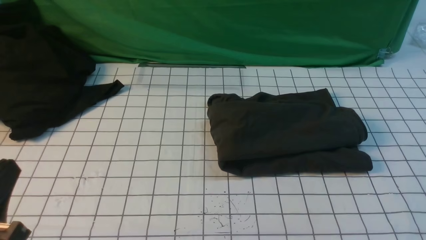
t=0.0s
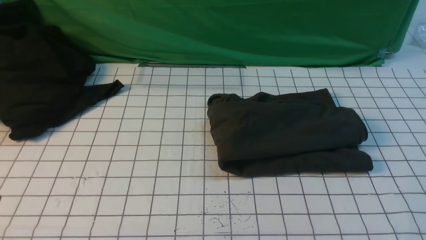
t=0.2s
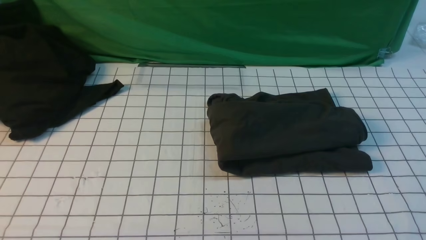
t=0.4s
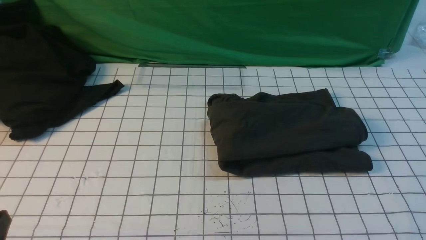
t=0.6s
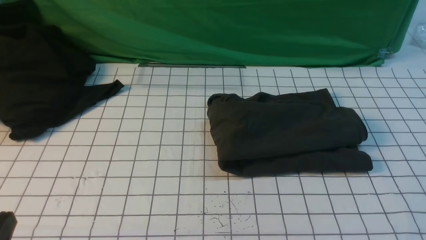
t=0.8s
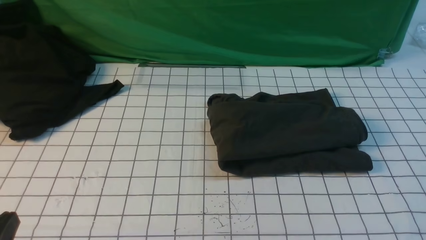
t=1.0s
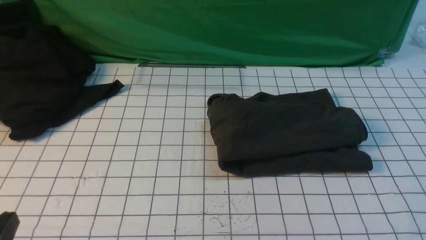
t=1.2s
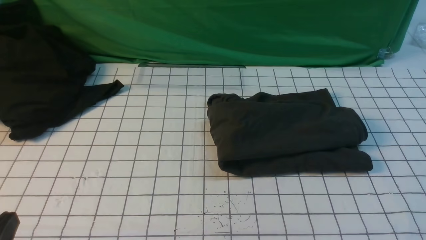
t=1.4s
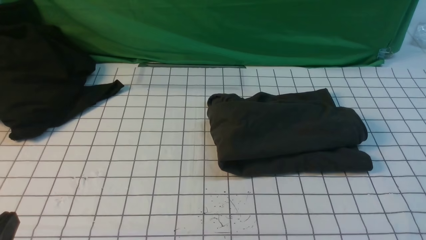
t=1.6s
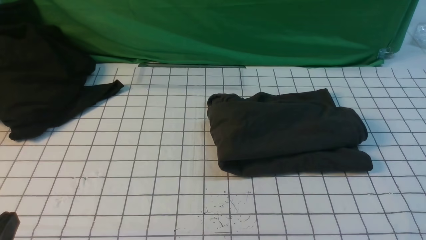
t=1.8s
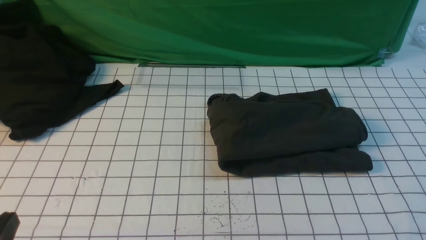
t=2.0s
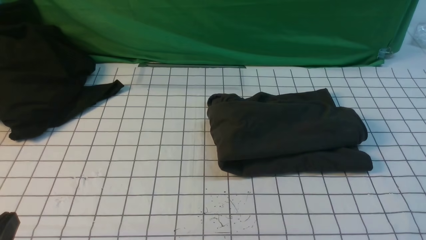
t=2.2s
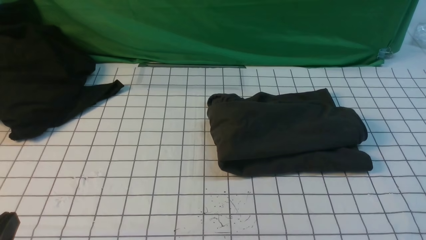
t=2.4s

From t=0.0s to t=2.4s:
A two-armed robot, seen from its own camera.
From t=0.0s to t=1.2s: The grippers make only small movements.
From t=1.2s to t=2.4s: The two grippers keep their place.

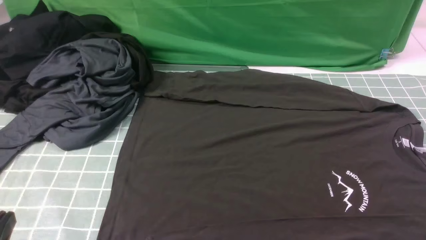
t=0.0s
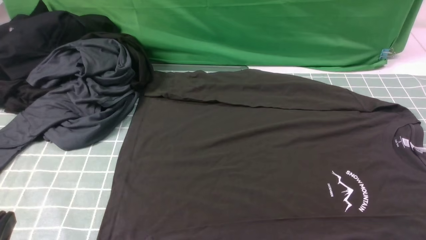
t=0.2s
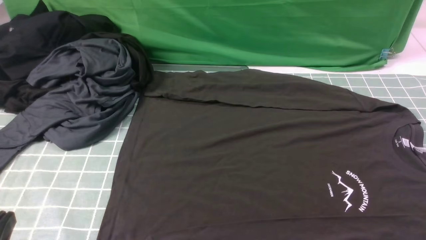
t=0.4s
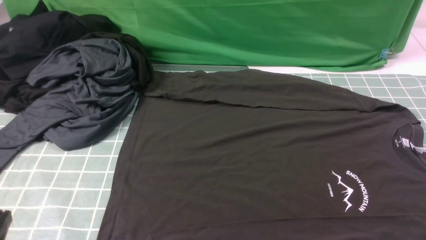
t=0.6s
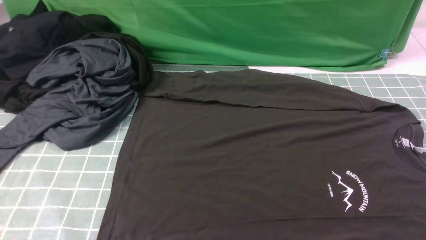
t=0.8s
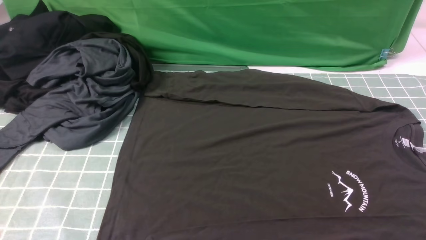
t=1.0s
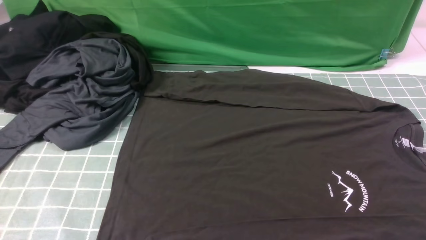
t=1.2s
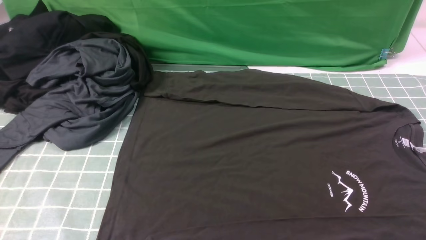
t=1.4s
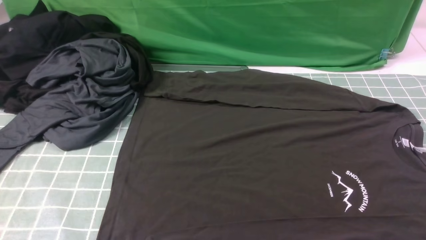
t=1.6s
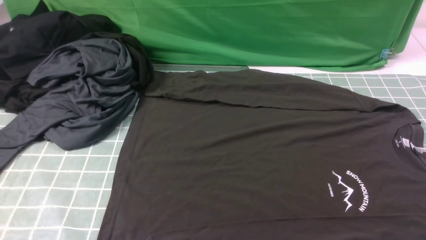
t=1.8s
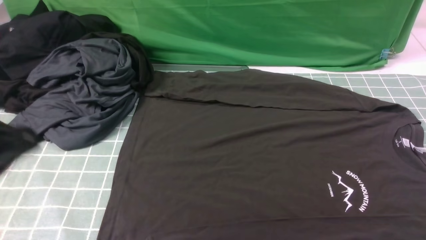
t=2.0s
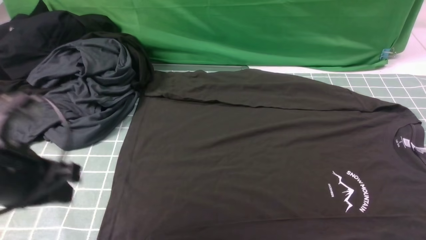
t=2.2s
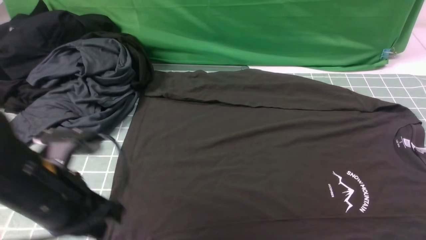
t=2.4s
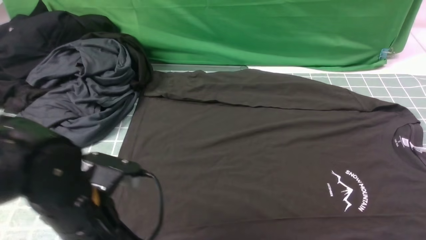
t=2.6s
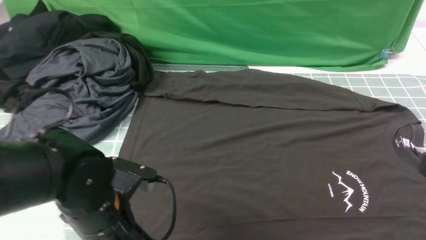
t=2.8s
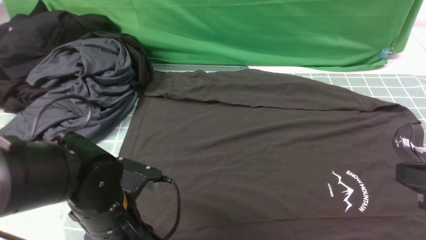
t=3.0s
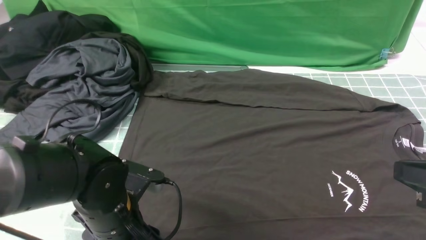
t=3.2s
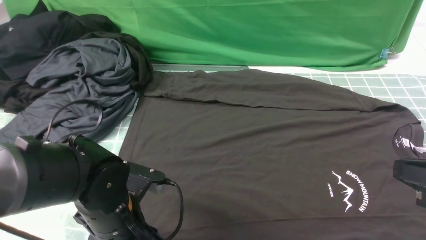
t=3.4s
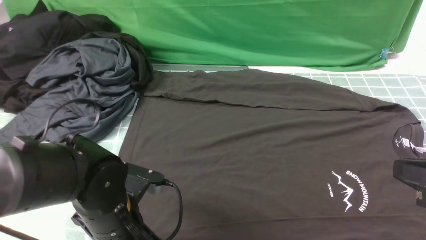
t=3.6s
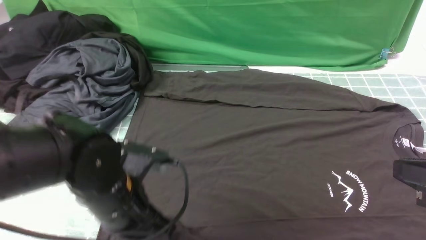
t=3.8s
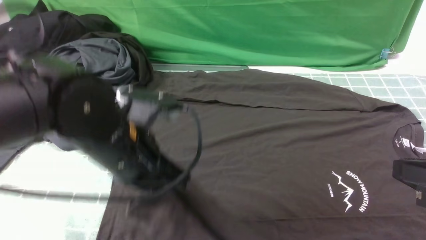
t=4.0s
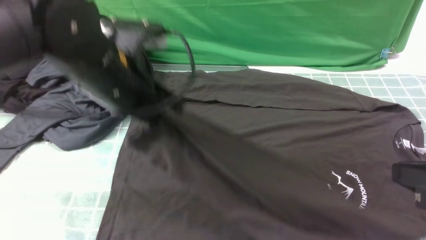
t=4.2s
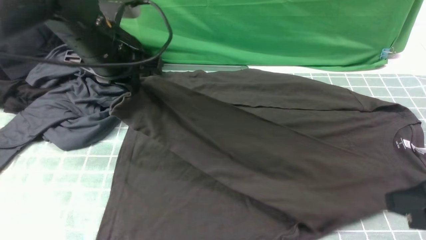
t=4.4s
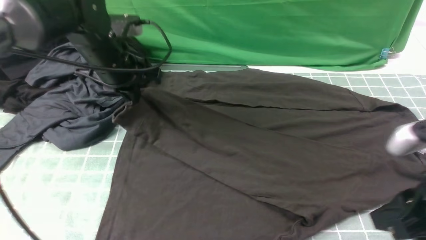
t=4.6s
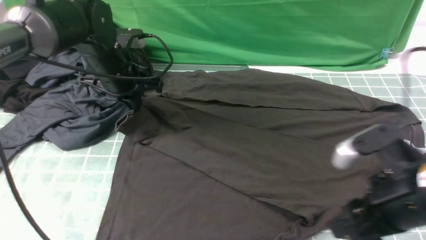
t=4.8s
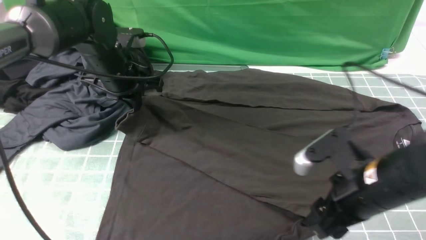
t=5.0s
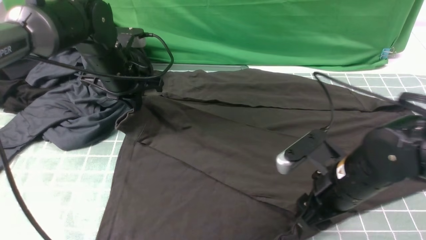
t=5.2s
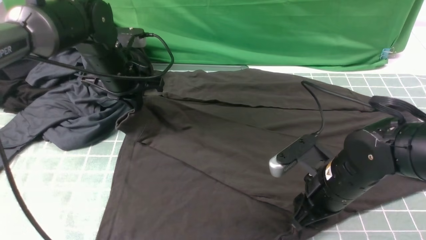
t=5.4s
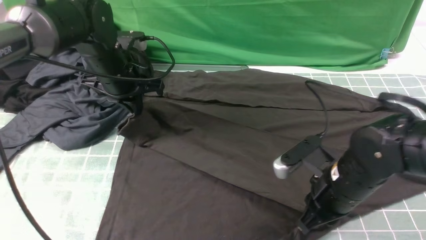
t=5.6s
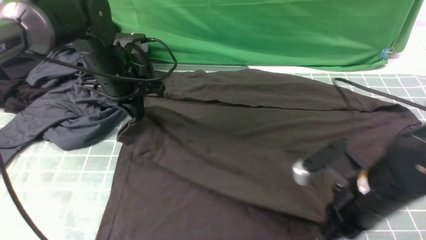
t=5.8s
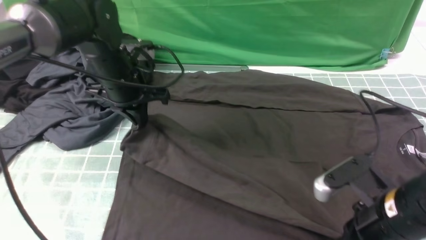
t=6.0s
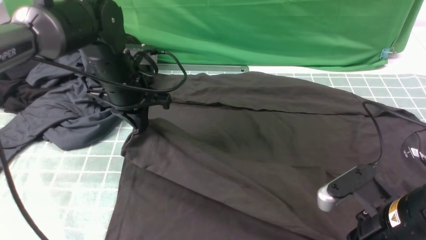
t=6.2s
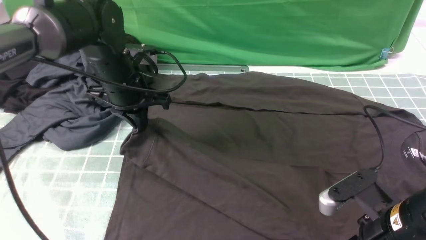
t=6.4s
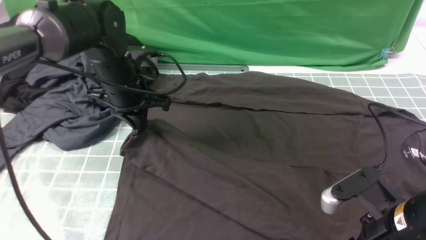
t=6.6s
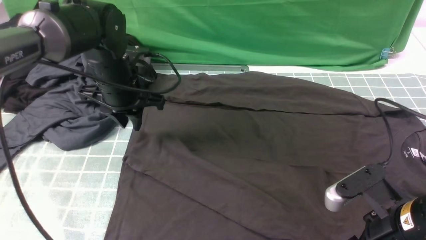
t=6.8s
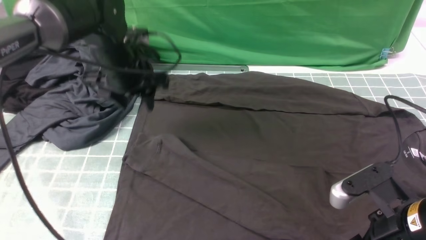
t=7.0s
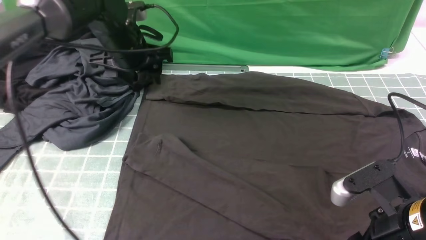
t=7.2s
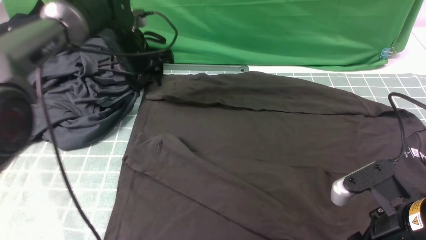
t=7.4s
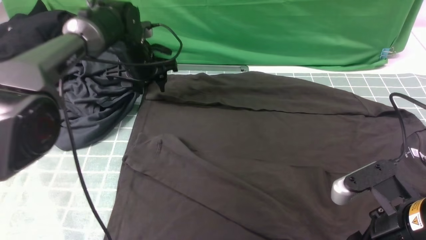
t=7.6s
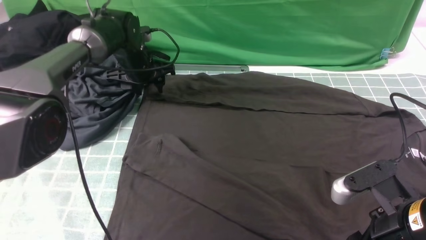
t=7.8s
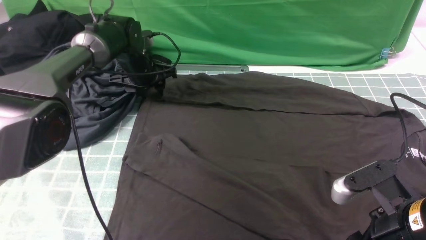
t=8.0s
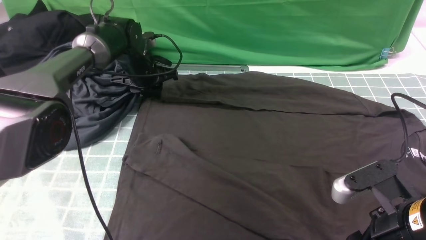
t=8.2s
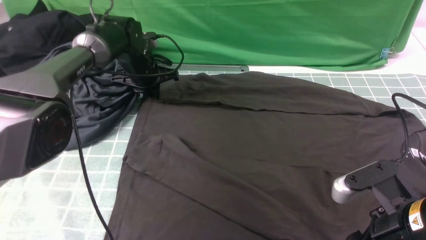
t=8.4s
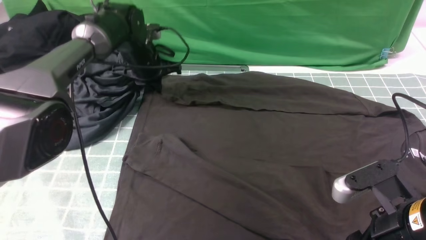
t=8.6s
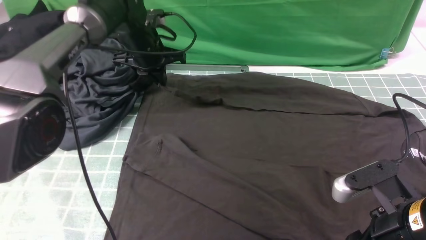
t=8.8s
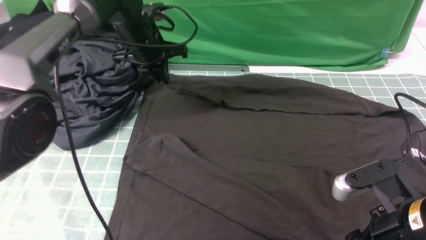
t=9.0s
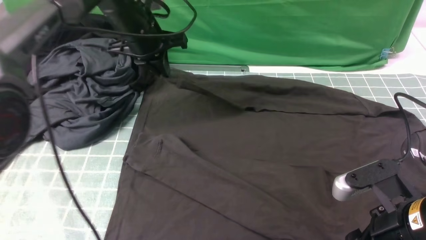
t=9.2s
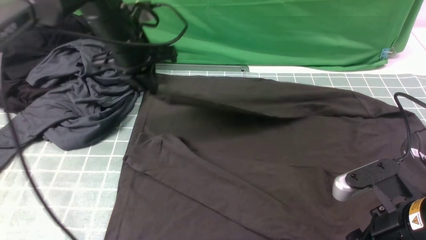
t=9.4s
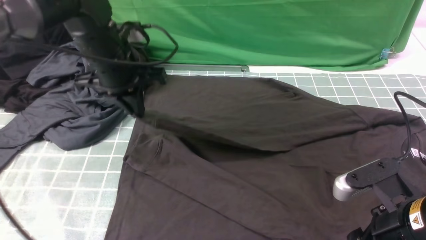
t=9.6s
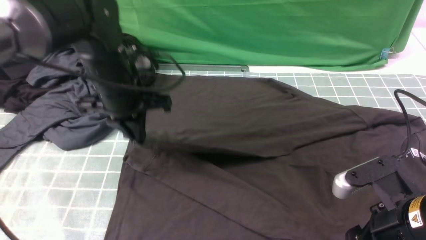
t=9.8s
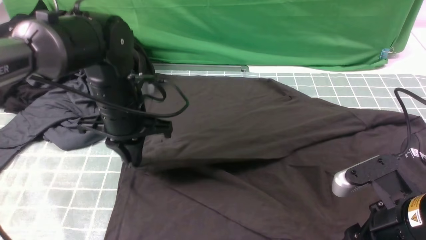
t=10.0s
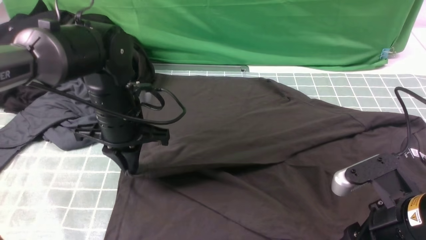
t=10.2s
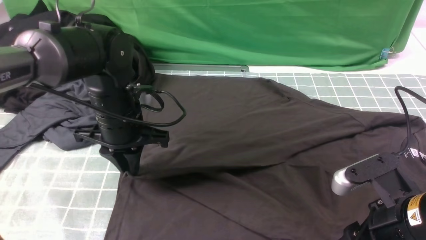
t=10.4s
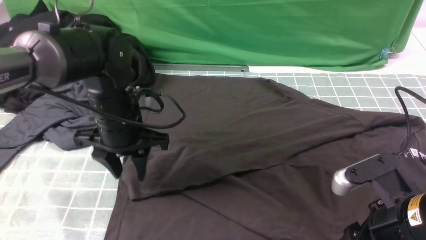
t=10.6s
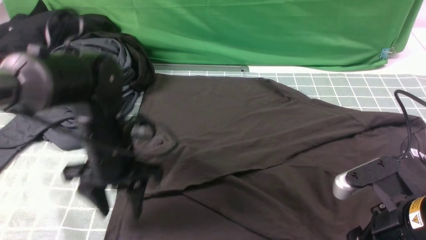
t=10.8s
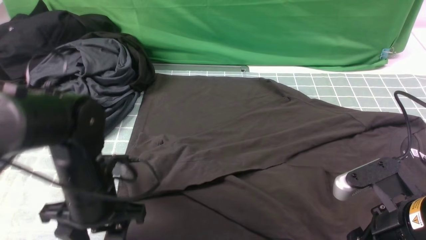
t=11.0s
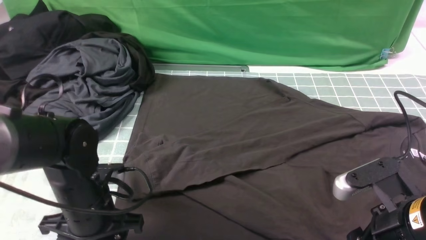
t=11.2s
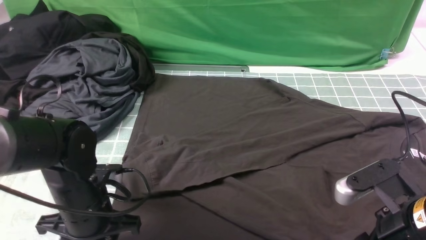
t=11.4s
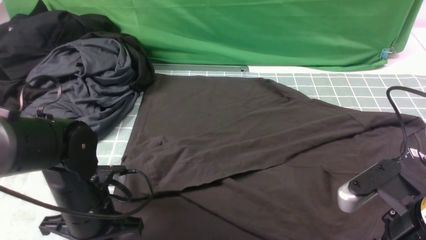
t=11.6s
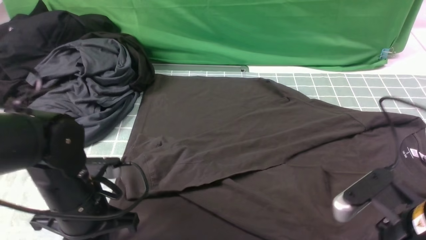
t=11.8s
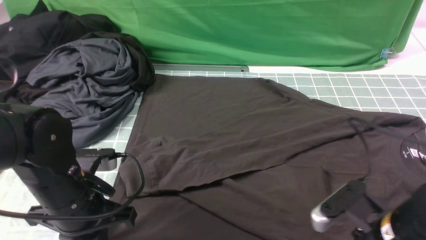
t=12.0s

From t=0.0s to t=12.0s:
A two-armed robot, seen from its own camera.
Step, from t=0.0s to t=3.6s: use the left arm to clamp the cuff closest to it.
Step, from t=3.8s to t=6.6s: use the left arm to drag and place the cuff at the centered position on the left edge of the fabric.
Step, from t=7.0s to t=8.4s: use the left arm to clamp the cuff farthest from it.
Step, from t=8.8s to t=10.8s: use the left arm to drag and drop the cuff onto the cuff closest to the left arm.
From t=1.6s to t=3.0s: The right gripper is displaced upward, forward and to the left by about 15 cm, and closes its fingers. Meanwhile the left gripper moves forward, downward and to the right, approximately 25 cm, and opens its fingers.
From t=3.0s to t=4.4s: The left gripper is displaced forward and upward by some 20 cm, and closes its fingers.
From t=4.4s to t=6.0s: The right gripper heads downward and to the left, covering approximately 10 cm, and opens and closes again; the left gripper shifts some 5 cm downward.
From t=6.0s to t=7.6s: The left gripper goes approximately 10 cm forward, and opens; the right gripper opens up.
From t=7.6s to t=9.0s: The left gripper is displaced upward by some 5 cm, and closes its fingers.
From t=9.0s to t=10.4s: The left gripper heads backward, covering some 15 cm, and opens.
From t=10.4s to t=12.0s: The left gripper is displaced backward by about 10 cm, and closes up.

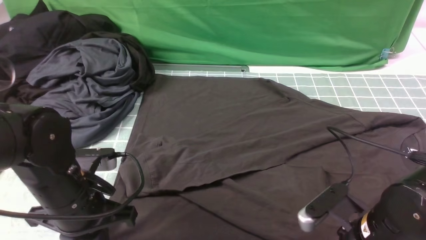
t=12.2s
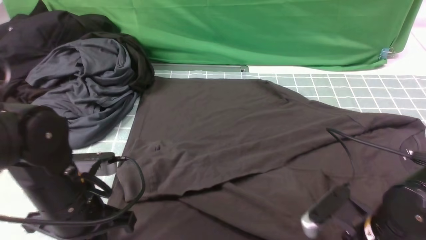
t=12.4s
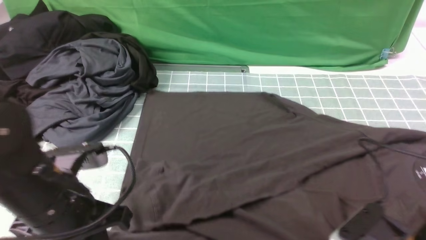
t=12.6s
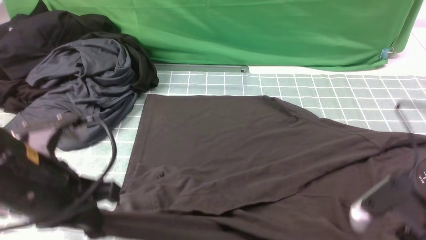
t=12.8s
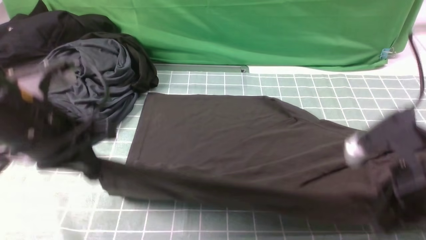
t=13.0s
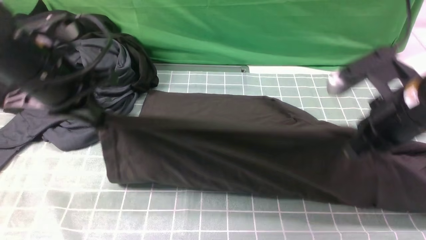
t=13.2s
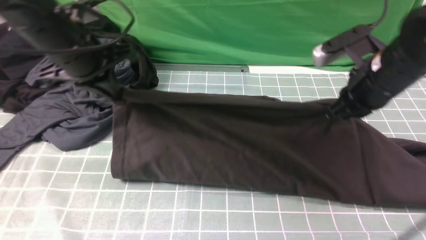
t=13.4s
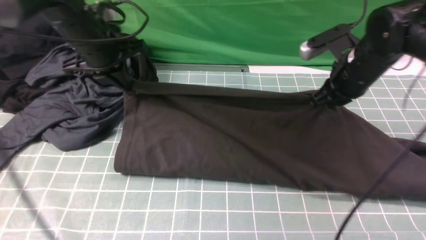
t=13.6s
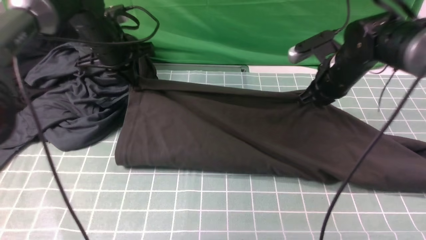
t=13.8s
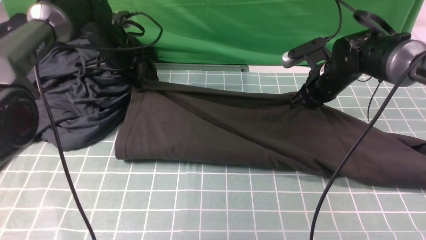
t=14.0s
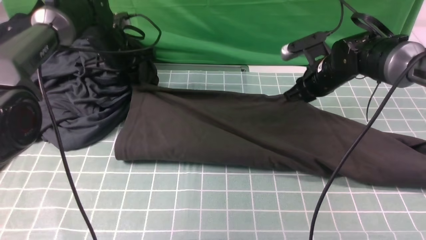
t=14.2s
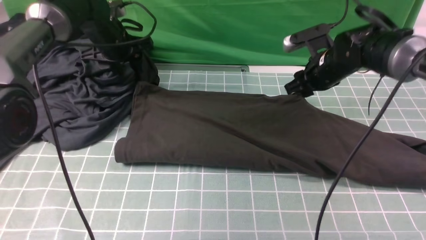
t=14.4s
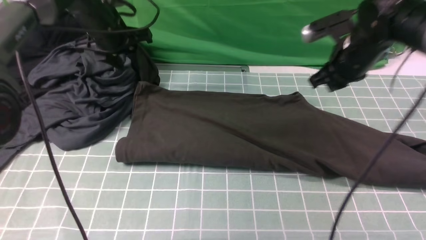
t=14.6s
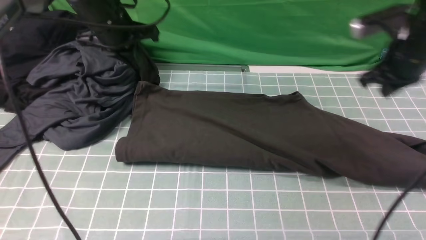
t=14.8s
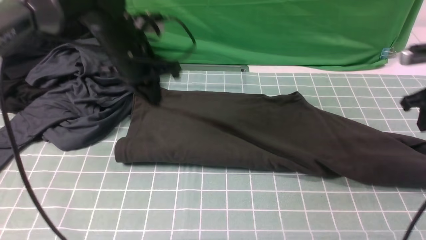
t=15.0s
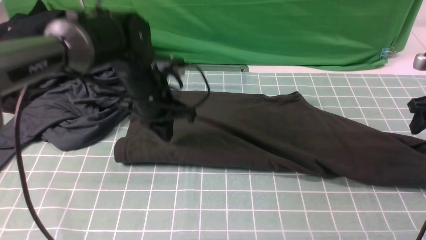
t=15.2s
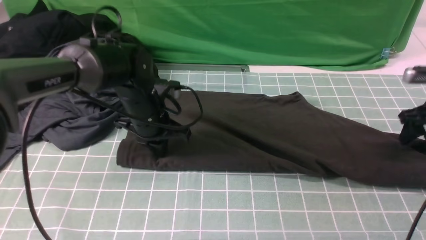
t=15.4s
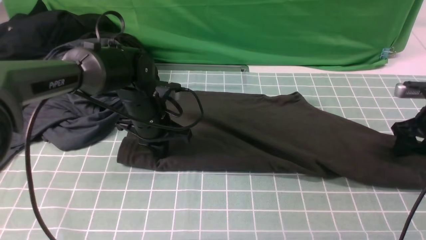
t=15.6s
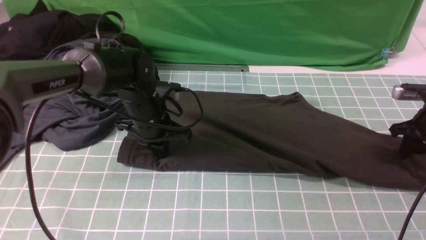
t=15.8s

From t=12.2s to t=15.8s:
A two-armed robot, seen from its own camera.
Step, from t=12.6s to t=14.4s: use both arms to drag the lower edge of the fabric forward and fold it over the upper edge.
From t=12.2s to t=14.0s: Both grippers move forward, roughly 30 cm. The right gripper closes its fingers.
From t=14.0s to t=15.8s: The left gripper is displaced backward, to the right and downward by some 15 cm, and opens, then closes once more; the right gripper moves to the right, approximately 20 cm, and opens and closes again.
